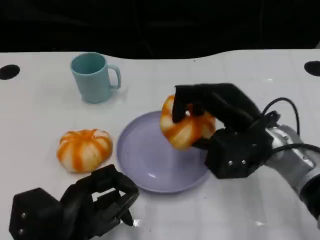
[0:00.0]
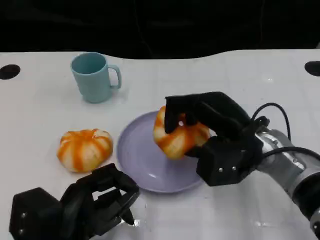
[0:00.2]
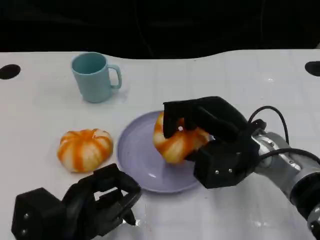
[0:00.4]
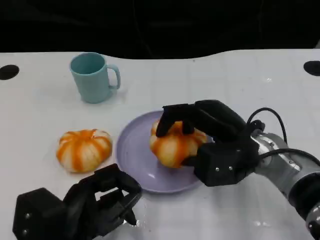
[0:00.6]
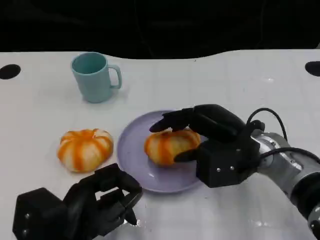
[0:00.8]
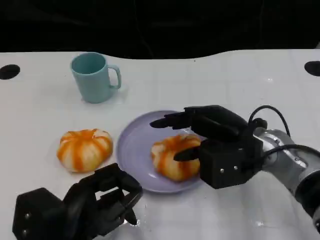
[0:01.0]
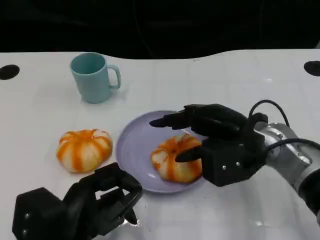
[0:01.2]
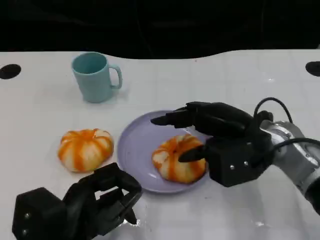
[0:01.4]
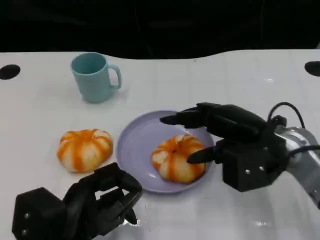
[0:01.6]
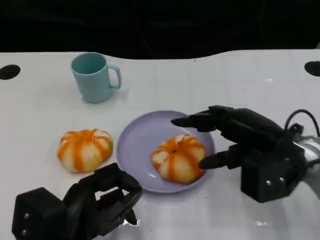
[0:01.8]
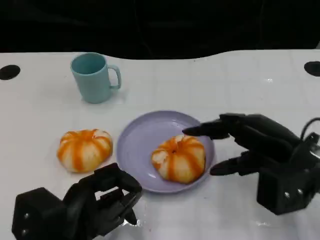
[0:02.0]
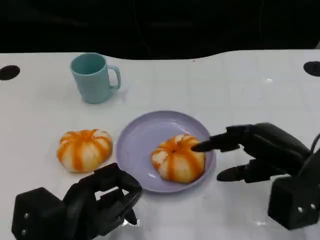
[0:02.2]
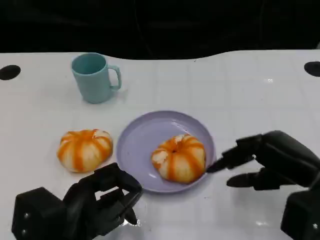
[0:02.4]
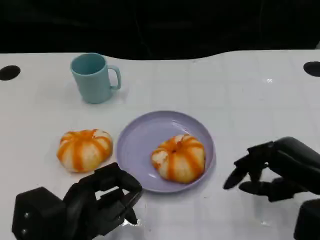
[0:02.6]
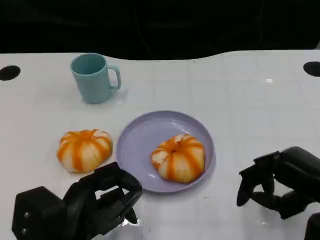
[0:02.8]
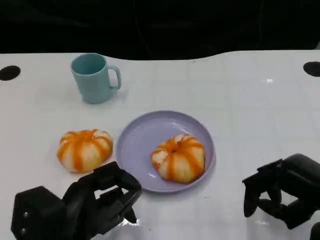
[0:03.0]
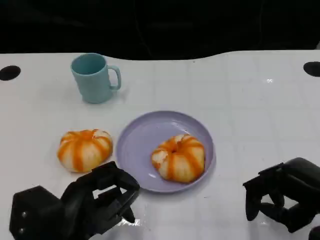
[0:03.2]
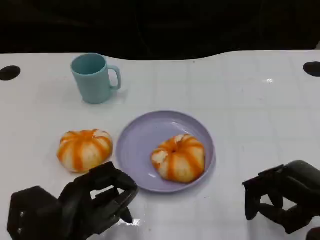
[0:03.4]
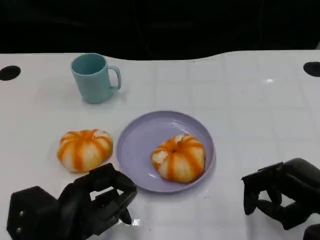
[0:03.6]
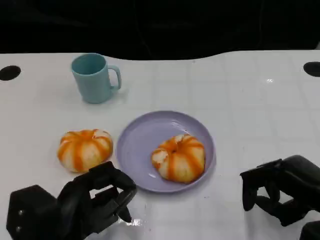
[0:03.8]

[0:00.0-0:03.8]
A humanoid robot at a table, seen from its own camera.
Task of the whole recording: Grasp the bread from the table and place it into the plate.
0:01.2 to 0:02.6: The right hand shifts about 15 cm to the right and backward.
0:02.6 to 0:03.8: There are only small adjustments of the hands.

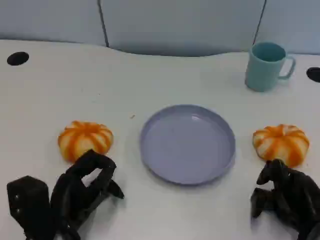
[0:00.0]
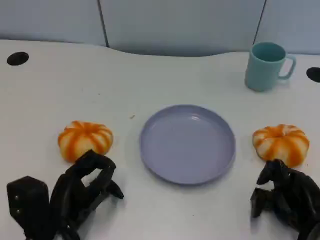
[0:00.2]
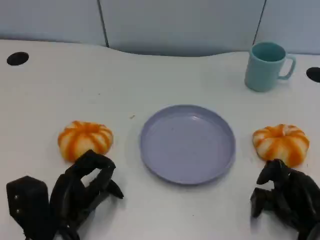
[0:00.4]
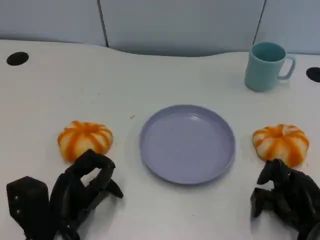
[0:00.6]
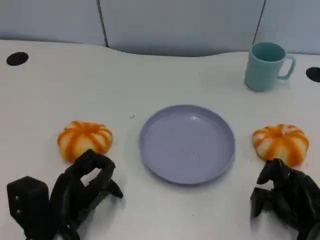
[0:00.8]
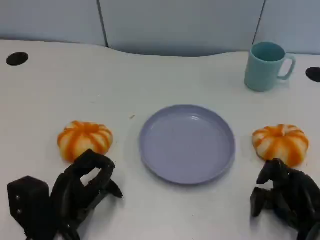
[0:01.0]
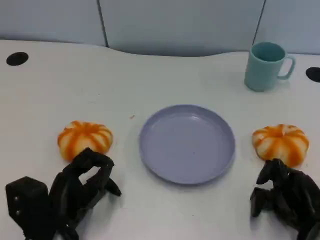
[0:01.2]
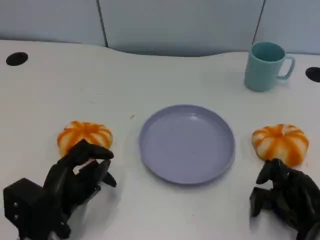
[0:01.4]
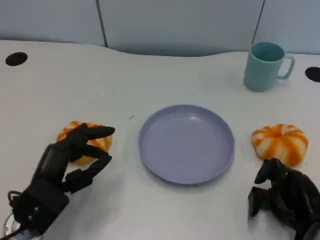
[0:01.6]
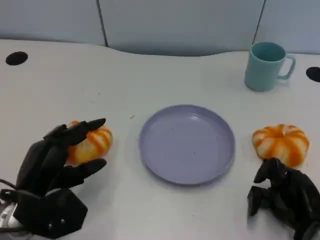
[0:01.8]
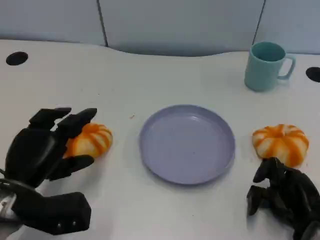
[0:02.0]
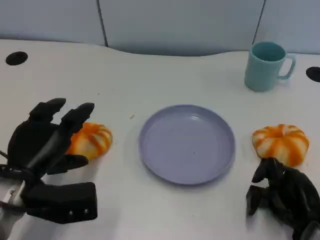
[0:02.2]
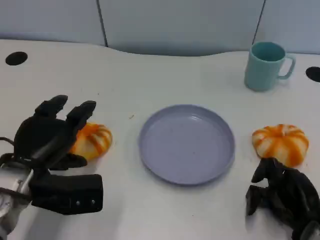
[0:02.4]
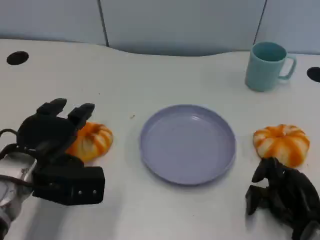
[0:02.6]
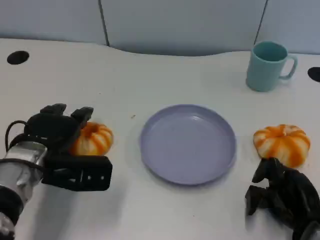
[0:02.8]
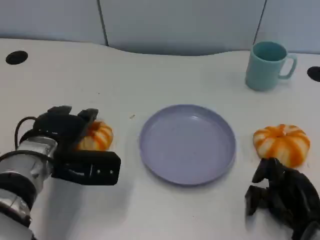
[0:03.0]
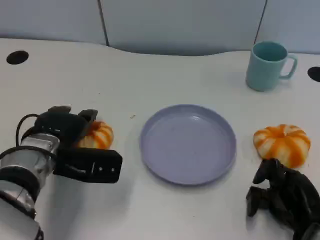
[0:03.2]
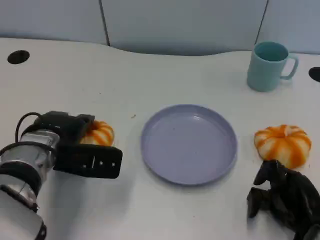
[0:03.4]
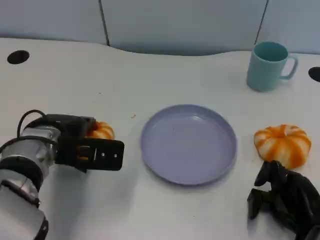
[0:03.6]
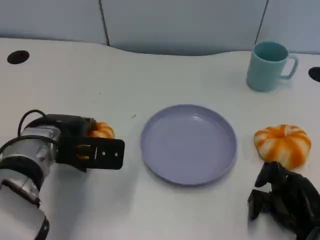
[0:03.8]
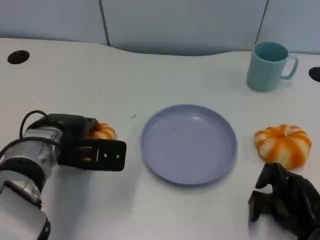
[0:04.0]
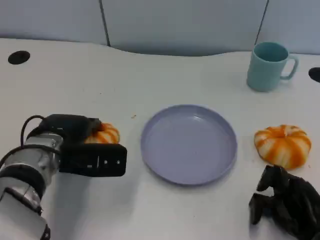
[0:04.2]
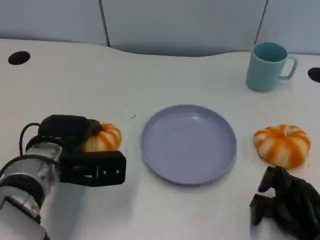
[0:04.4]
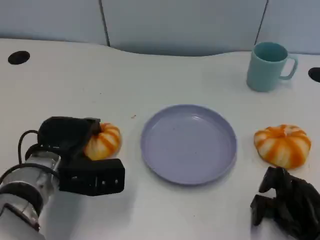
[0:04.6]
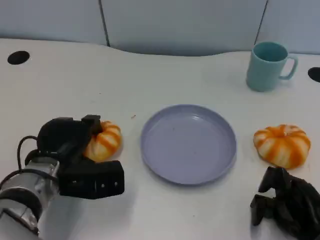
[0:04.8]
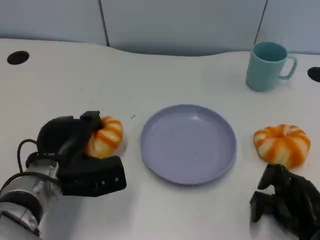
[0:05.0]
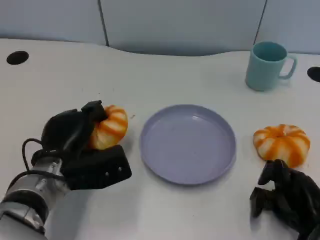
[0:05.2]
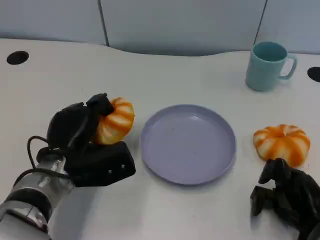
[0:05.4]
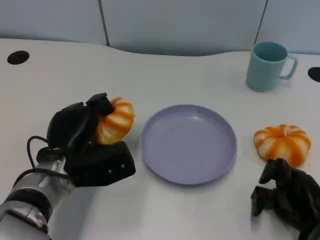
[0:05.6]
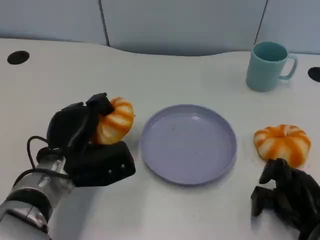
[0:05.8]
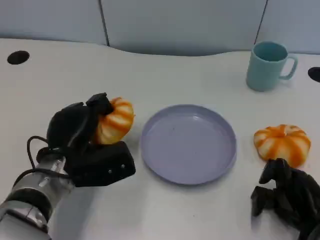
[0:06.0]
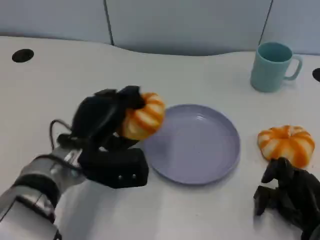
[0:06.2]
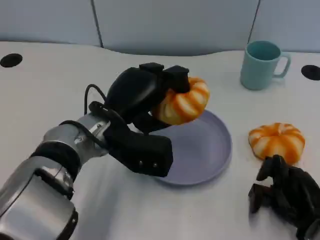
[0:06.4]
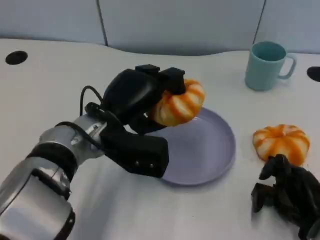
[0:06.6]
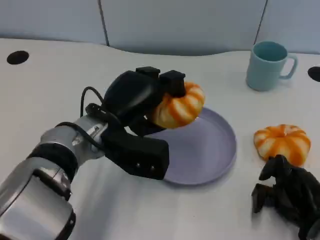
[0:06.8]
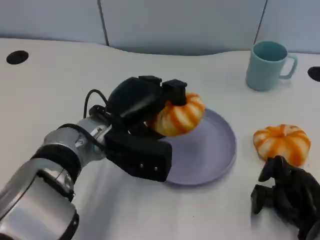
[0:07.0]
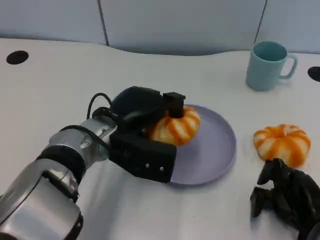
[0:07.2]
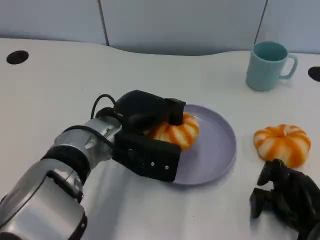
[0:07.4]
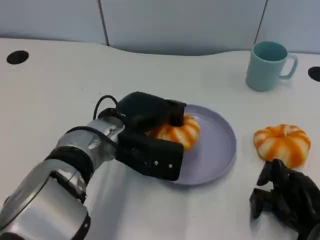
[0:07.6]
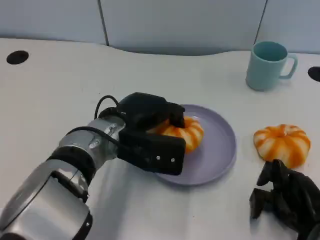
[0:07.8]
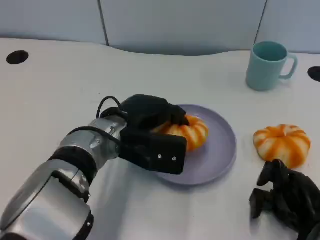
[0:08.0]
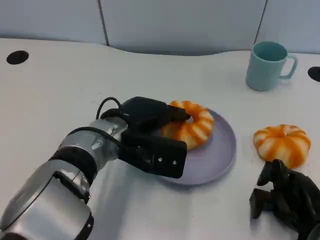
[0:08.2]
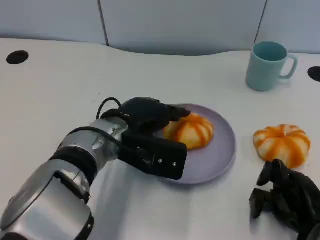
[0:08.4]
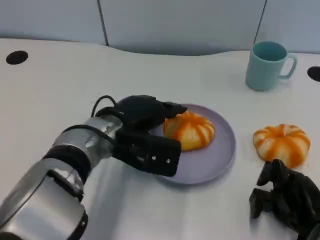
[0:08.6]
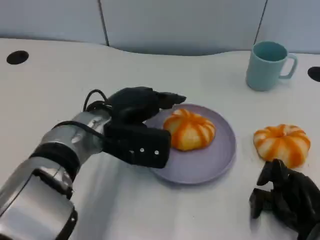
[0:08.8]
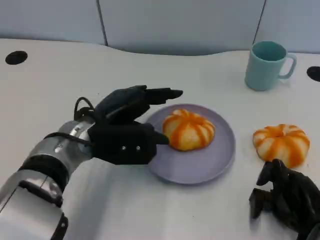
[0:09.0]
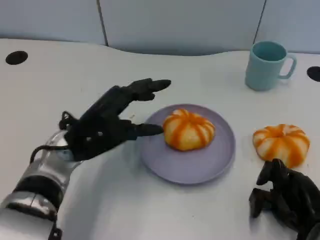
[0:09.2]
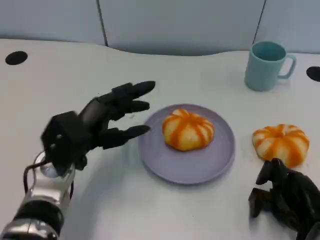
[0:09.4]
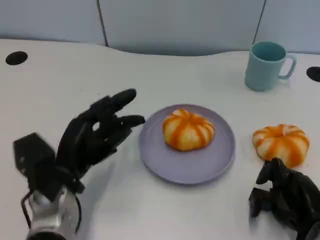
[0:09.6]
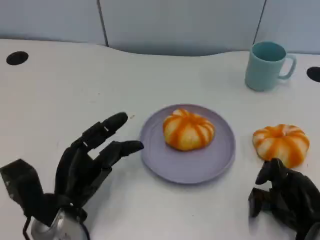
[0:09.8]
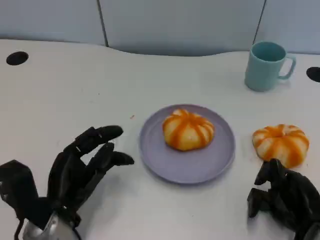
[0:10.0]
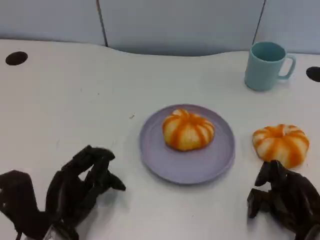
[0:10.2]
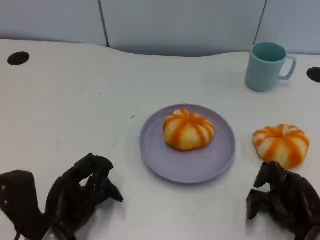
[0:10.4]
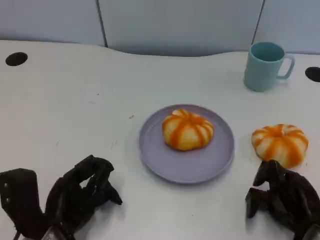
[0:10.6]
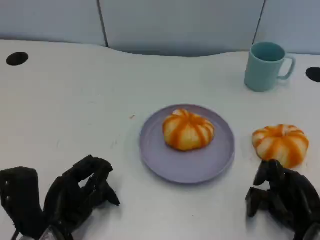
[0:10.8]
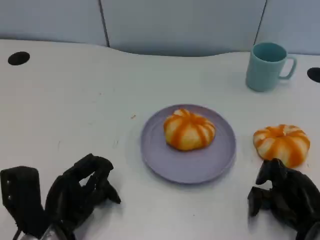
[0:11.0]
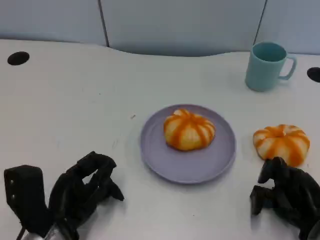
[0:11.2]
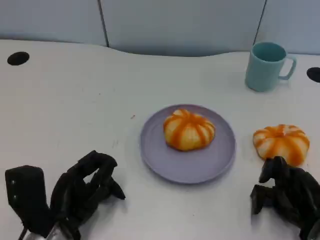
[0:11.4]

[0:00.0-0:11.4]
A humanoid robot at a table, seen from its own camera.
Task of the whole recording: Grasp the bread from the table and place it into the plate.
0:01.4 to 0:02.8: The left hand is displaced forward and upward by roughly 10 cm.
0:02.8 to 0:04.2: The hands move only a little.
0:05.6 to 0:07.2: The left hand moves to the right and upward, about 10 cm.
0:07.2 to 0:08.6: The hands make only small movements.
0:08.6 to 0:10.0: The left hand heads backward, to the left and downward, covering about 15 cm.
0:10.0 to 0:11.4: The hands stay close to where they were, moving slightly.

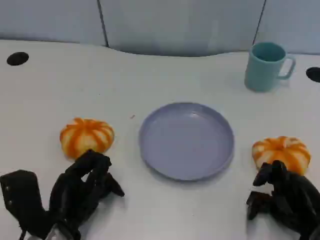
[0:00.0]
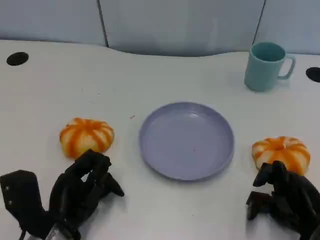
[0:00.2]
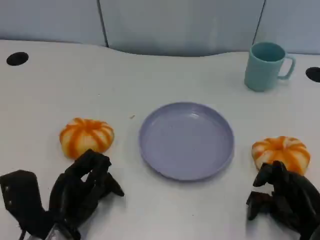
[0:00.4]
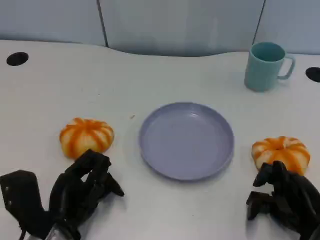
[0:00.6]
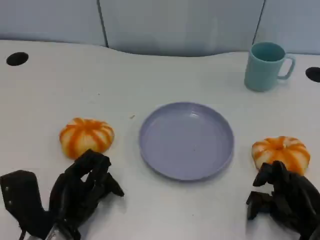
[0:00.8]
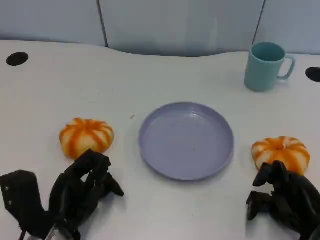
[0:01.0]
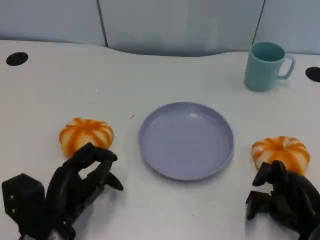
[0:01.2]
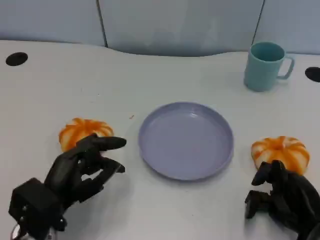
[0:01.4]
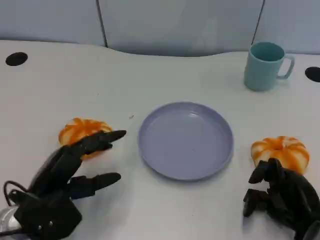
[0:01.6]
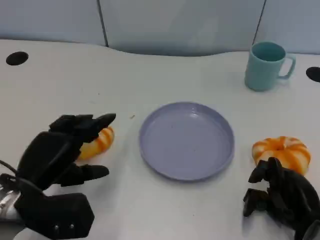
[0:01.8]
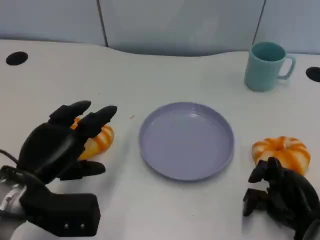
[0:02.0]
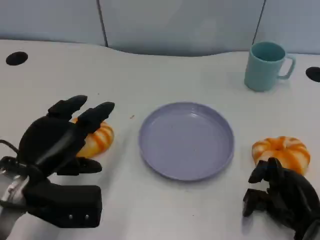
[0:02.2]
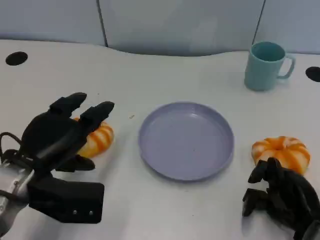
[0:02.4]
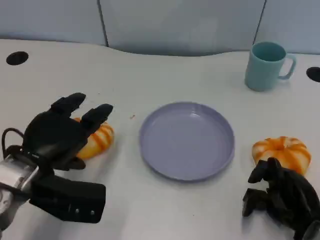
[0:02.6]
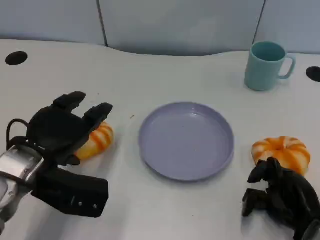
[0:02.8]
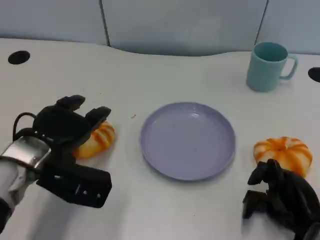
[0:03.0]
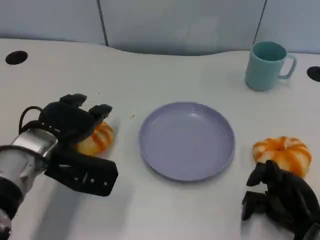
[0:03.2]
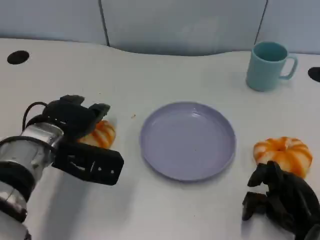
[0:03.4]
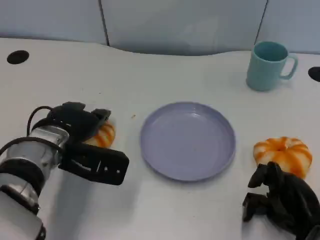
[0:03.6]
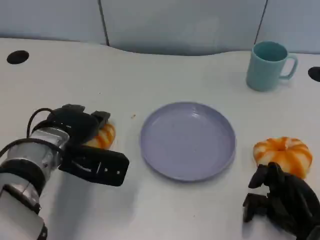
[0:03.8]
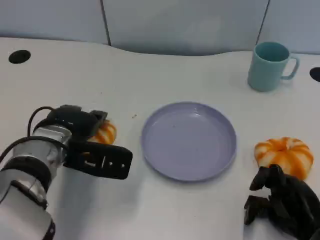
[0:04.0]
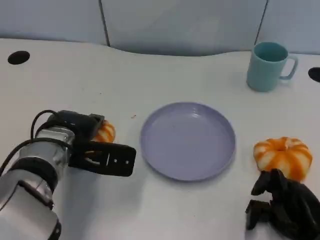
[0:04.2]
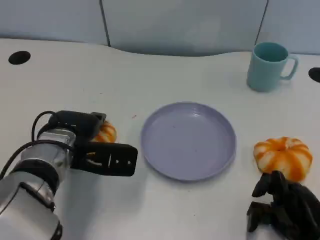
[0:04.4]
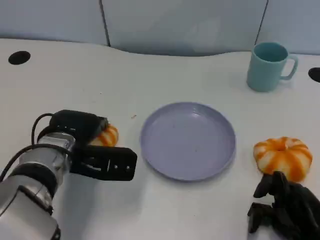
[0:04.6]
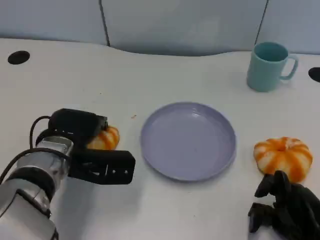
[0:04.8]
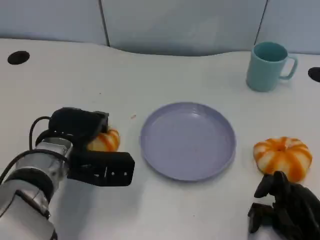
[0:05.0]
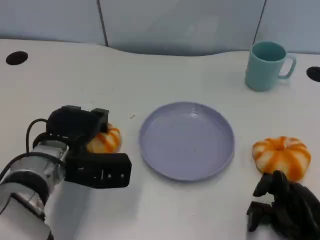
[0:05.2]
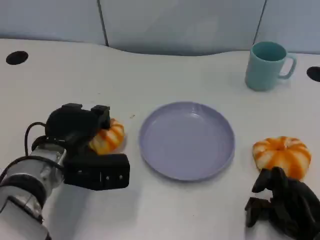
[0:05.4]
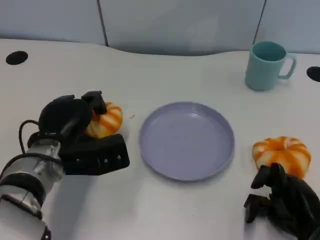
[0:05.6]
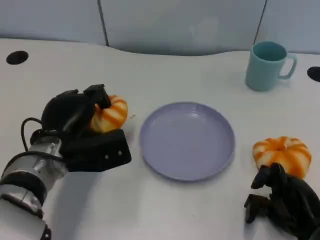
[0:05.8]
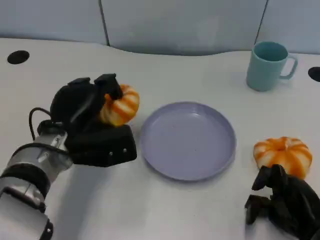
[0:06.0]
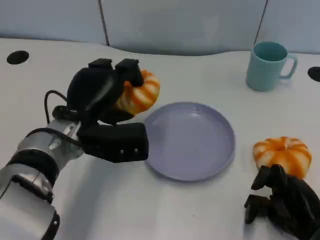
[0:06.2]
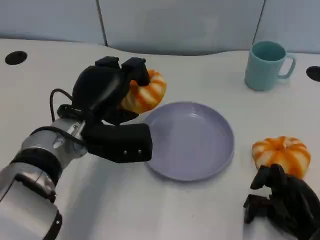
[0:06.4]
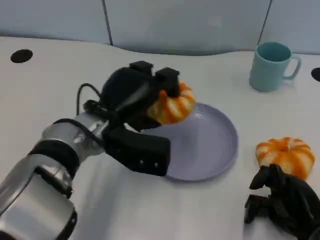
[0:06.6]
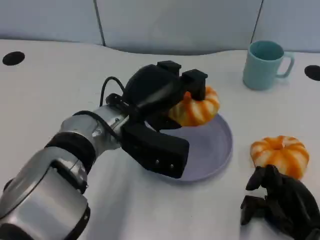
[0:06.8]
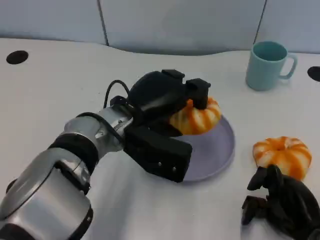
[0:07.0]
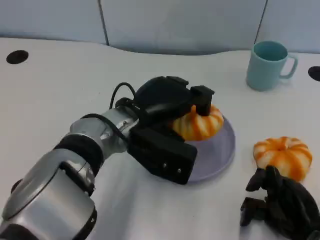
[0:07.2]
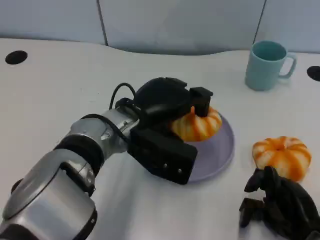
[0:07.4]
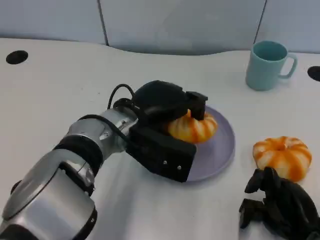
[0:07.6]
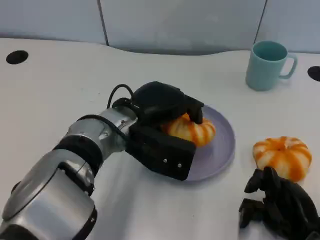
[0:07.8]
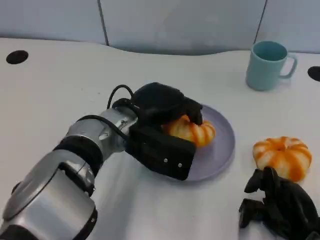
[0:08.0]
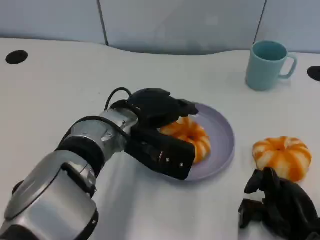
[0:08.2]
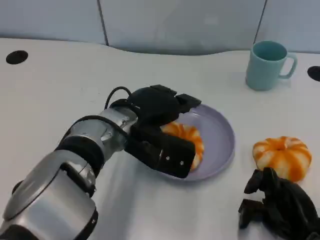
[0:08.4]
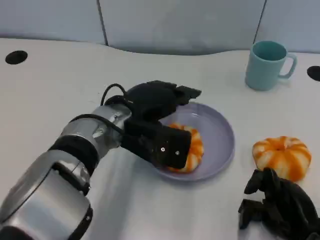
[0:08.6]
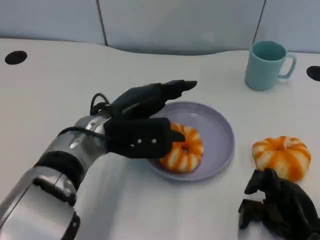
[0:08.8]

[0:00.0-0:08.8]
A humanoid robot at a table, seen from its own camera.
Task of the whole recording: Grasp the bread from the table and place it into the plate.
0:01.4 to 0:03.0: The left hand goes roughly 10 cm forward and upward.
0:05.8 to 0:07.4: The left hand goes approximately 10 cm to the right.
